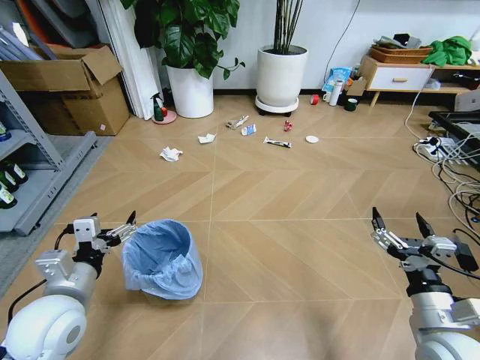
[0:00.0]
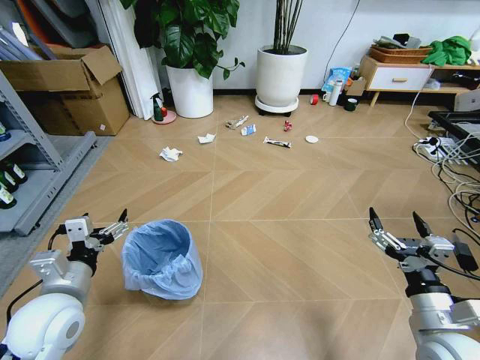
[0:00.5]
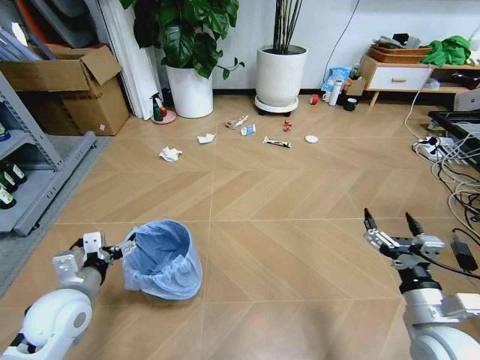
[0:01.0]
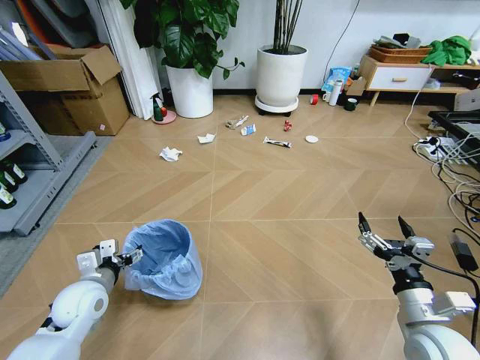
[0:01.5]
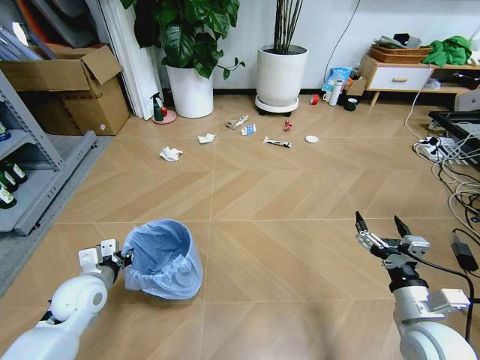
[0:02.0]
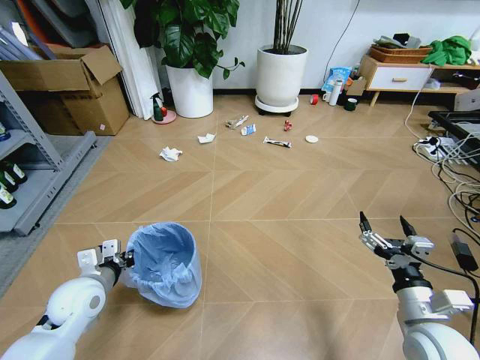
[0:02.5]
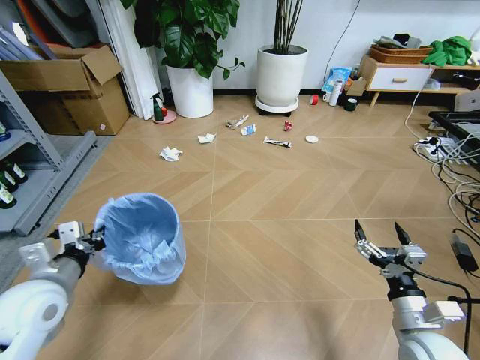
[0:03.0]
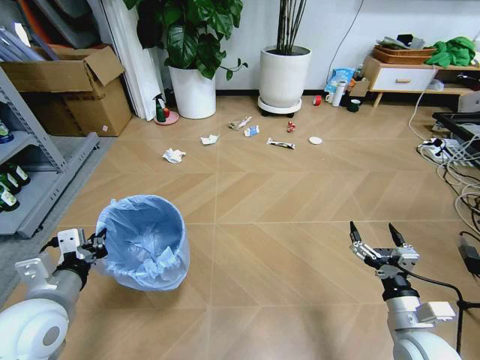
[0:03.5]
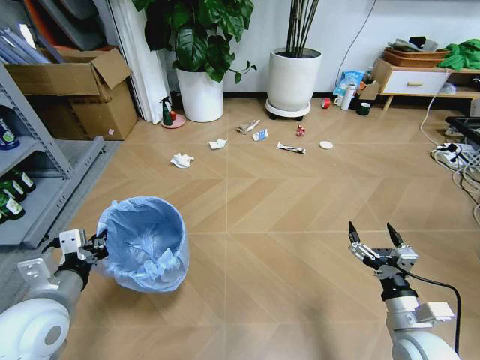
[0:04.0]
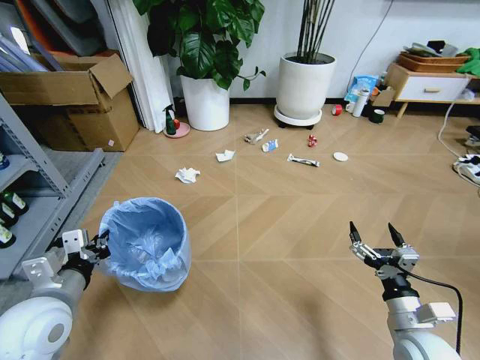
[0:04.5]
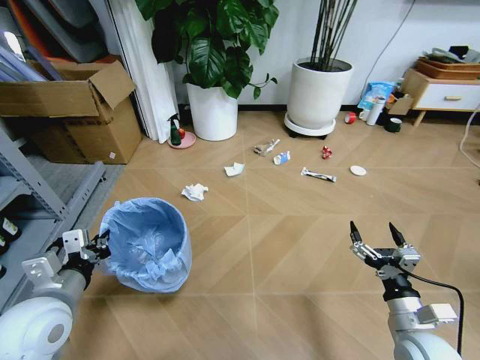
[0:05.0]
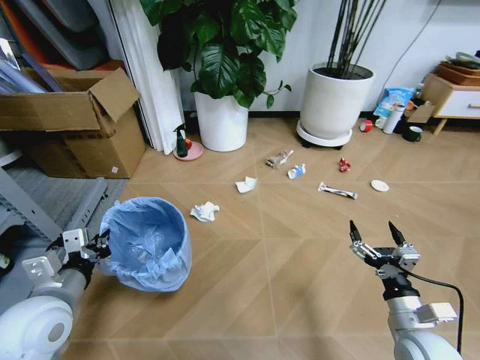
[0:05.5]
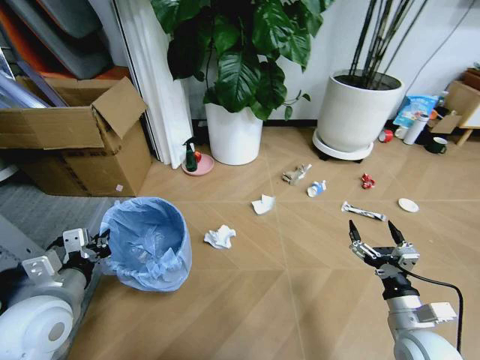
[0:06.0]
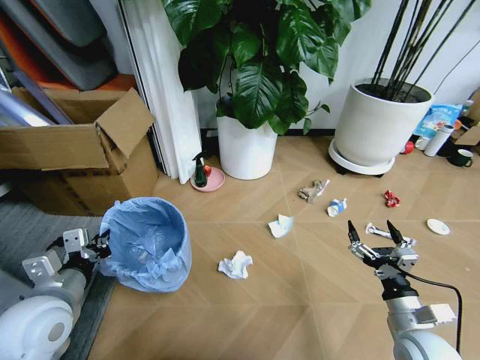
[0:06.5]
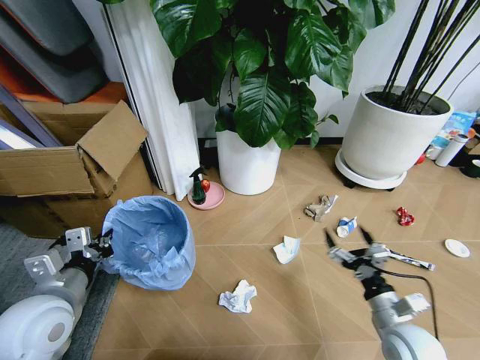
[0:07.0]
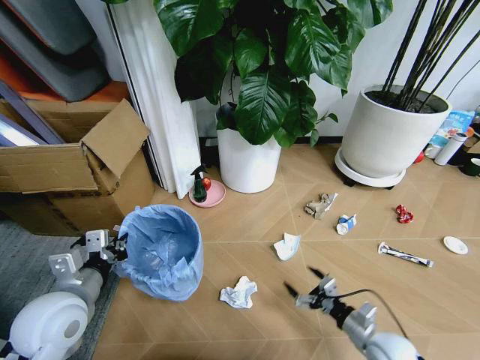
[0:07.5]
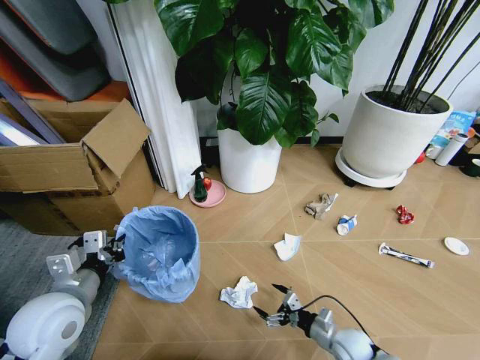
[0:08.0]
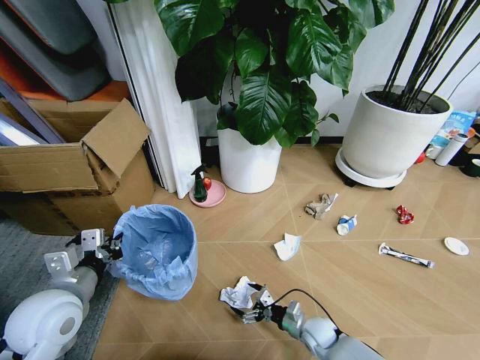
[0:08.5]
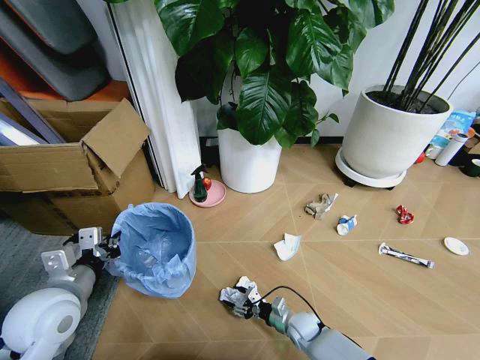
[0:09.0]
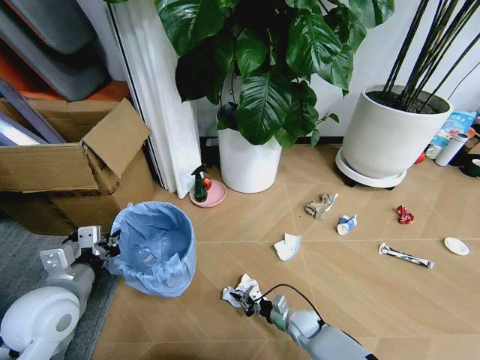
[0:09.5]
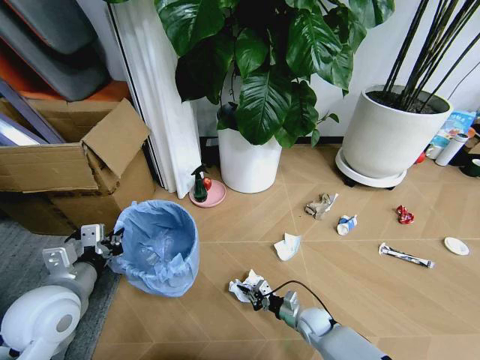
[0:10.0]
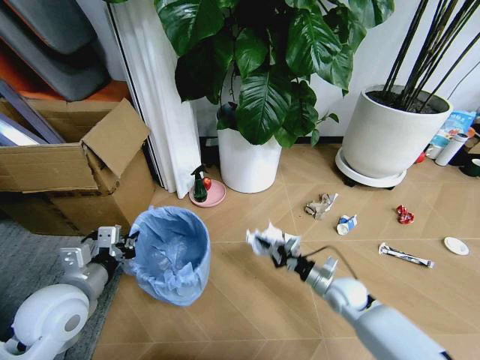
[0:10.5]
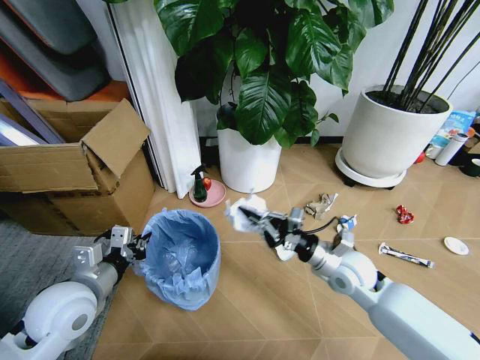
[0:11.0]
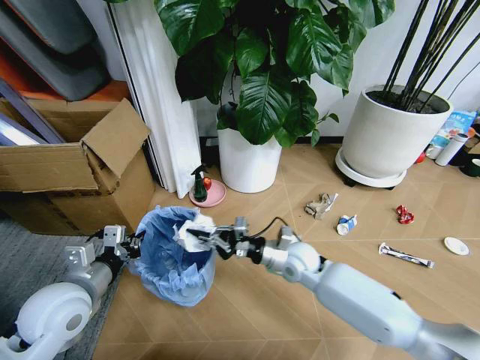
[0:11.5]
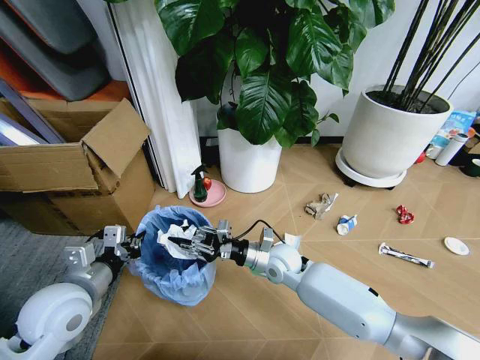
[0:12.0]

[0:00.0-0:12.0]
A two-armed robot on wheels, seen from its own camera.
Task of the whole recording: Pick up the trash bin and place the garbage on the floor into it.
0:02.0 to 0:04.0: The left gripper goes approximately 15 cm upward and backward.
0:06.0 to 0:08.0: The right gripper travels downward by roughly 20 cm.
0:08.0 to 0:10.0: The right gripper goes about 10 cm to the left and forward, and closes up.
0:10.0 to 0:12.0: The right gripper travels upward, to the left and forward by some 25 cm.

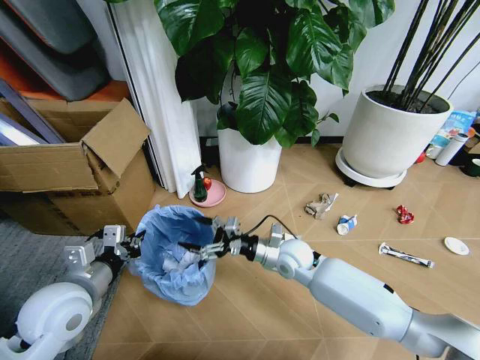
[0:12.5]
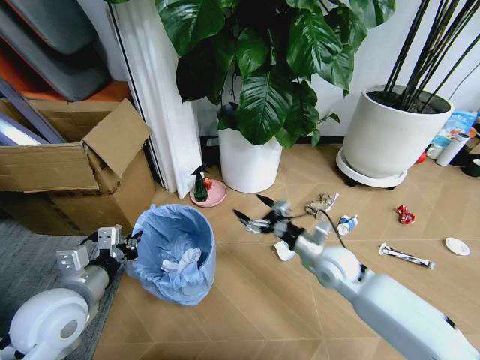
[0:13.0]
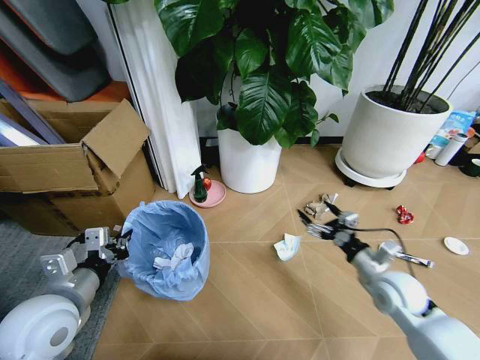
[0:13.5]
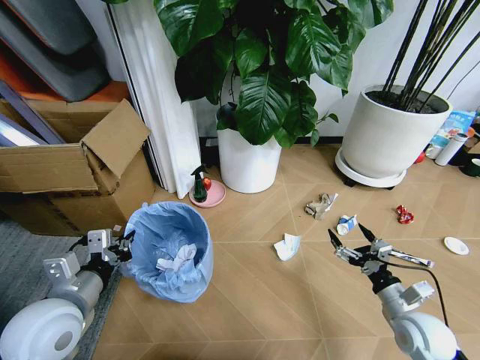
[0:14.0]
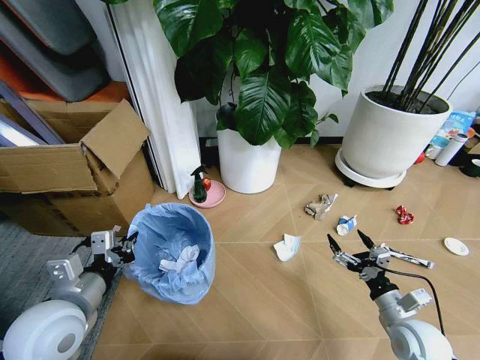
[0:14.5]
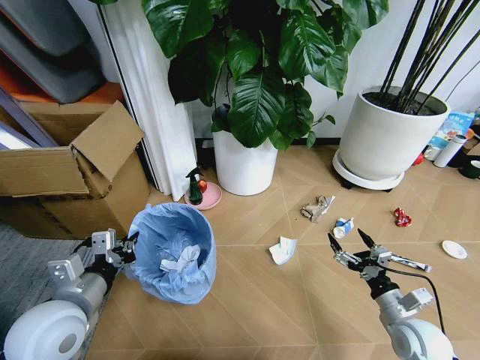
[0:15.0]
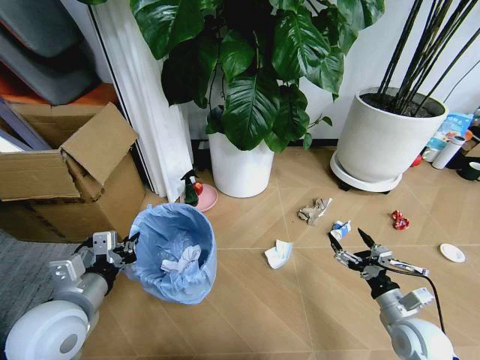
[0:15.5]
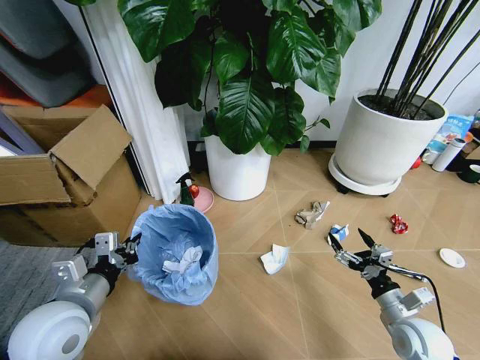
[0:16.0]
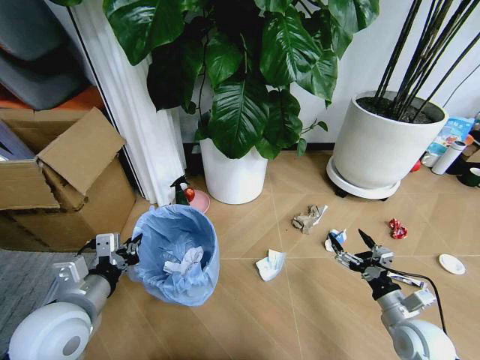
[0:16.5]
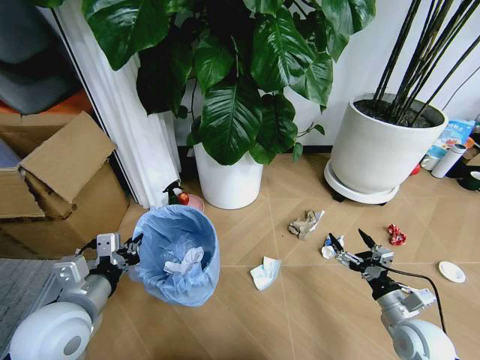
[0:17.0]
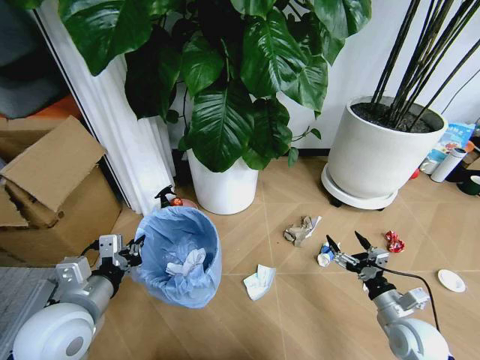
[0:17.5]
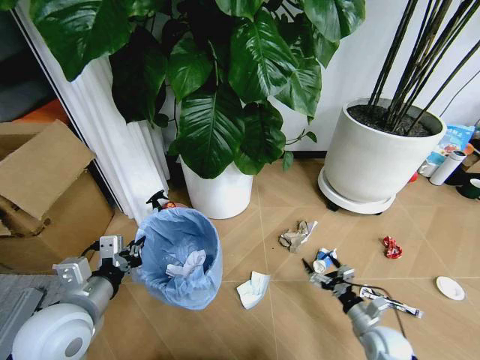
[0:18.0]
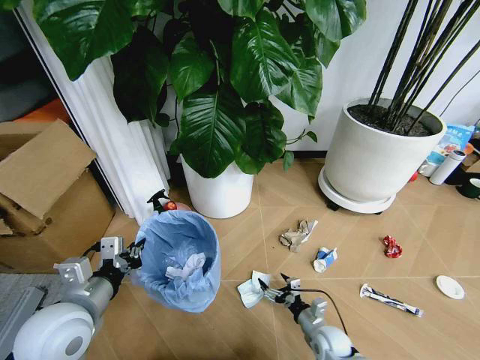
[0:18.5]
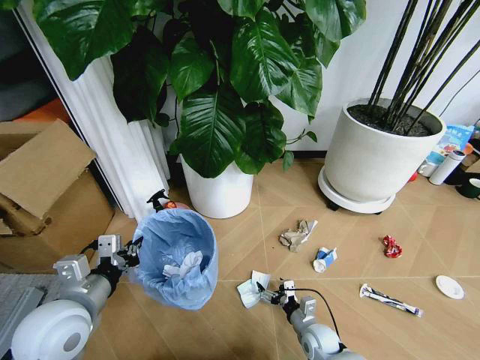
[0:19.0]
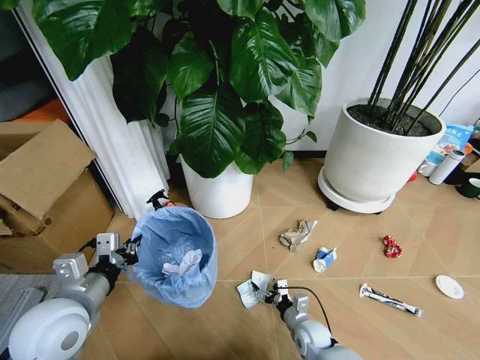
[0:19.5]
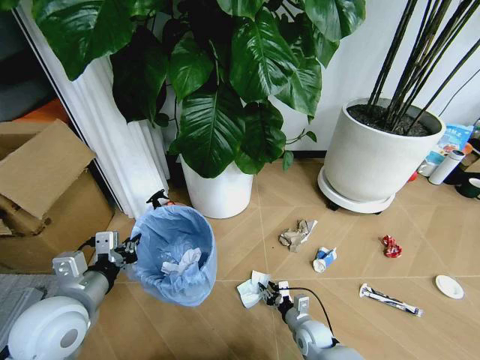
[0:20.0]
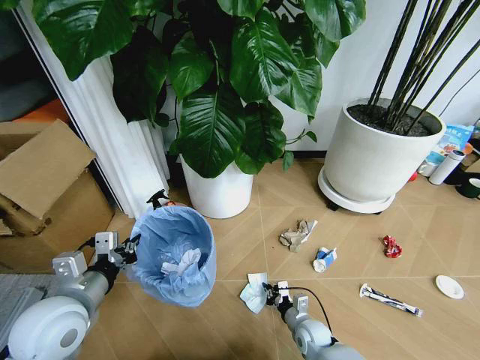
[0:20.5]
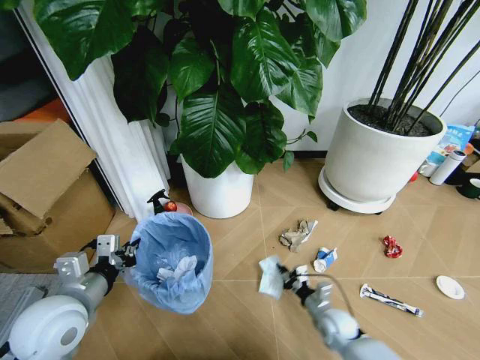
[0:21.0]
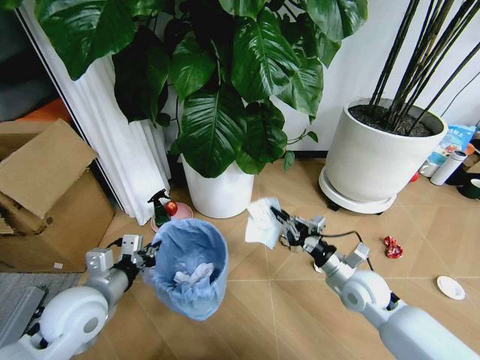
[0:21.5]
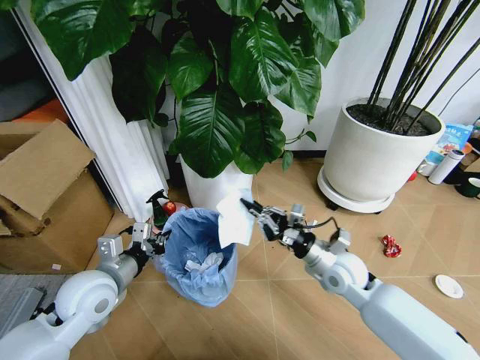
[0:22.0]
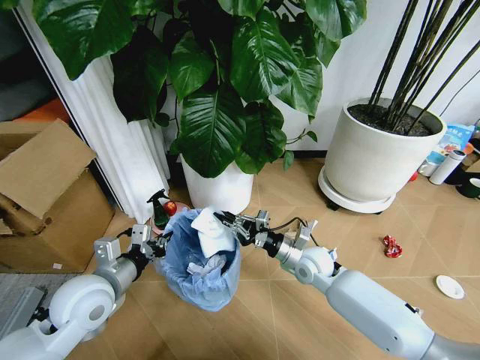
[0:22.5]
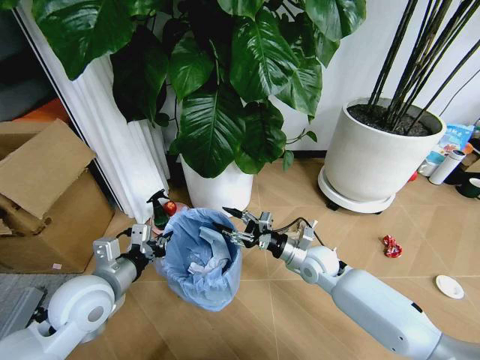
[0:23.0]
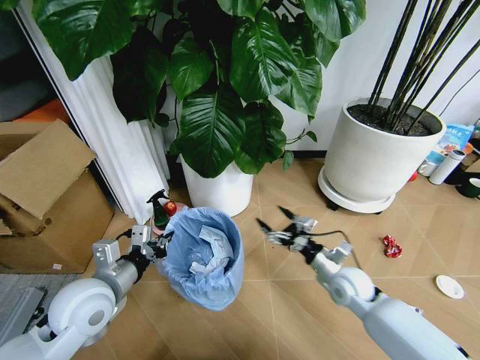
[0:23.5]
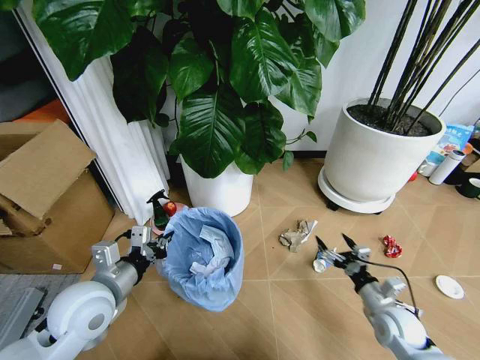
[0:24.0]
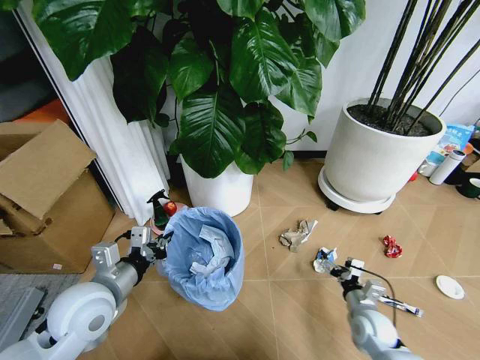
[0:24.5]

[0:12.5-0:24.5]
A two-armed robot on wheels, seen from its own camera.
Task of the whole recording: Pick up the trash bin and place the garbage on the floor into it.
0:12.5 to 0:14.5: The right gripper moves to the right and backward, some 30 cm.
0:16.5 to 0:18.5: The right gripper heads downward and to the left, covering some 20 cm.
0:18.5 to 0:20.5: The right gripper moves approximately 5 cm, and closes.
0:20.5 to 0:22.5: The left gripper shifts by approximately 5 cm, while the right gripper goes some 25 cm upward and forward.
0:22.5 to 0:24.5: The right gripper heads to the right, backward and downward, covering about 25 cm, and opens.

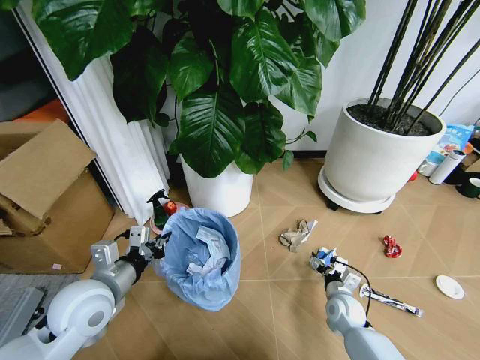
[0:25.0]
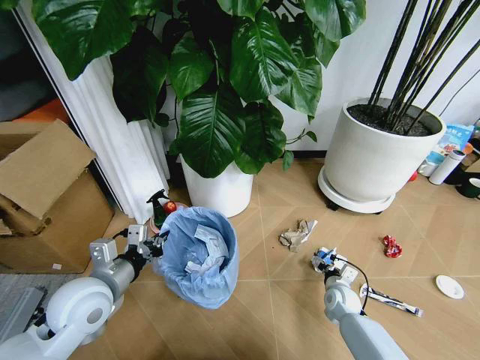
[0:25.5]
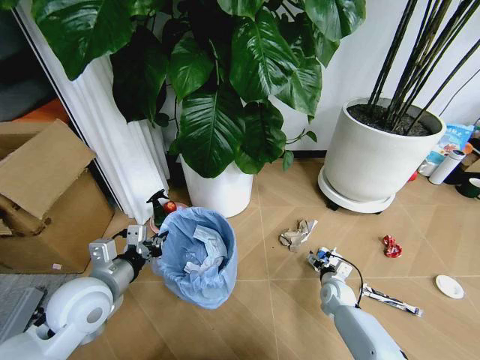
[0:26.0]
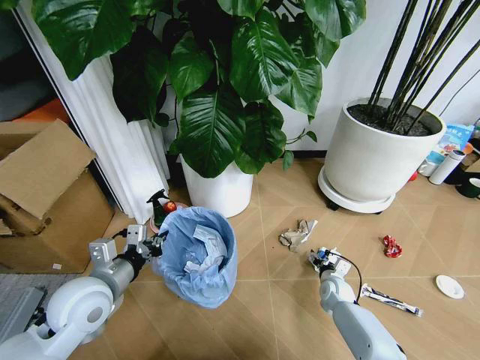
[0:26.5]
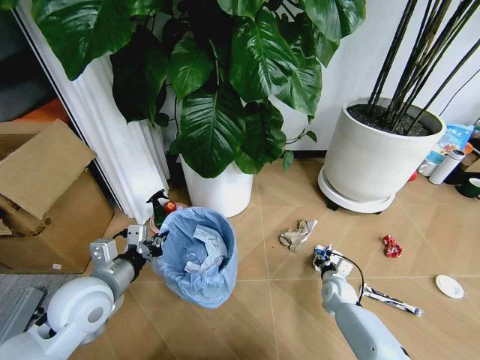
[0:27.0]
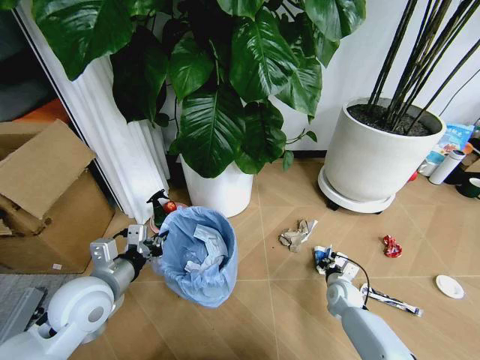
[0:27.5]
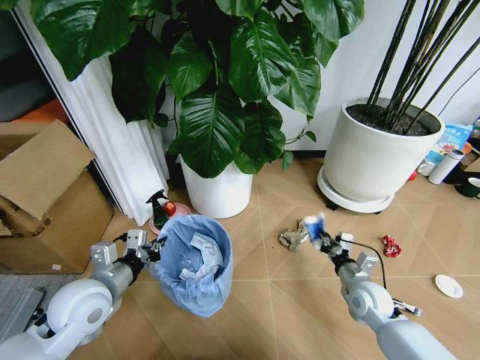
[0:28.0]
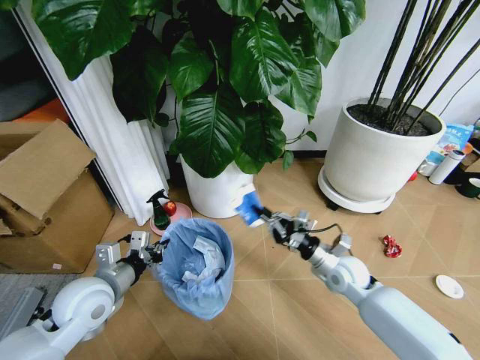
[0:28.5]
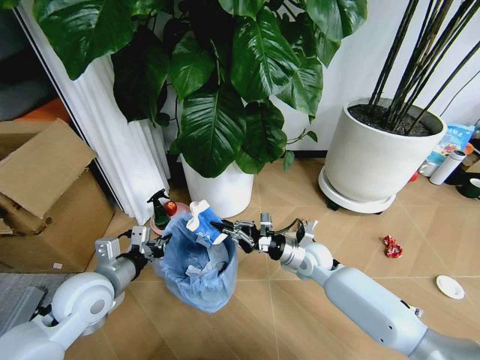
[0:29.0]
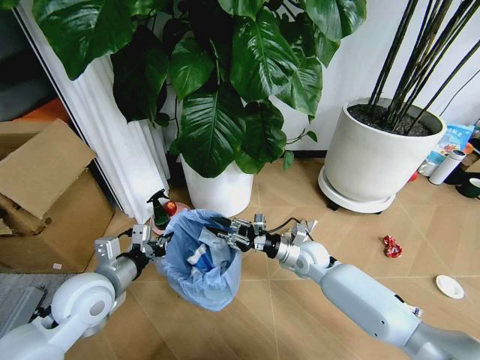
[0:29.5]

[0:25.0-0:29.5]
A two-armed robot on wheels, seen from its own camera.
Task of the whole recording: Pick up the trash bin and place the garbage on the floor into it.
0:25.0 to 0:27.0: The right gripper heads forward, covering about 5 cm, and closes its fingers.
0:27.0 to 0:29.5: The right gripper goes roughly 20 cm upward and to the left.
